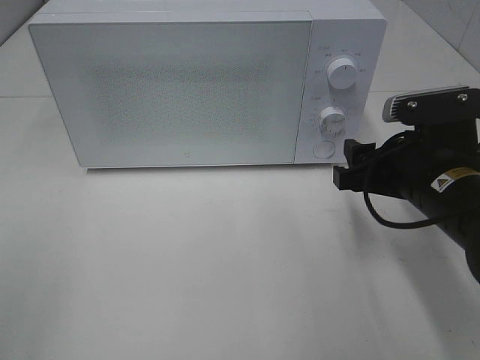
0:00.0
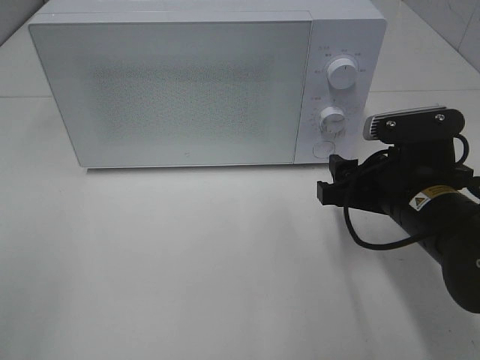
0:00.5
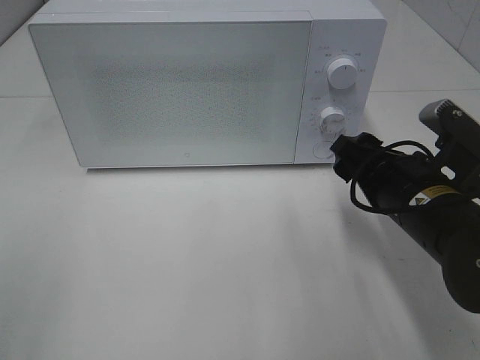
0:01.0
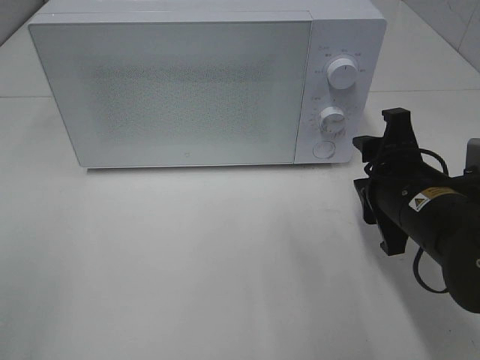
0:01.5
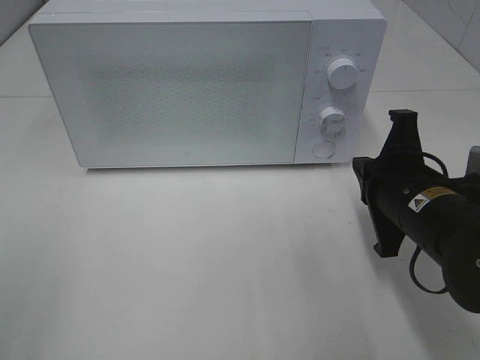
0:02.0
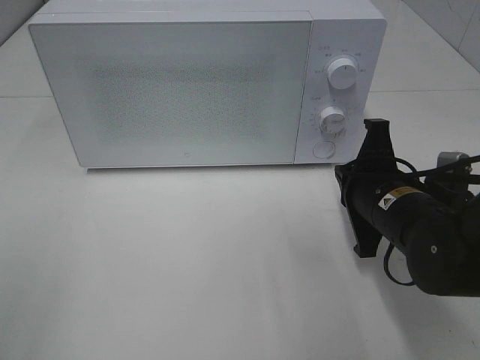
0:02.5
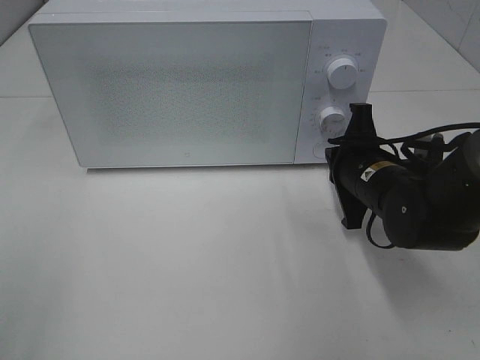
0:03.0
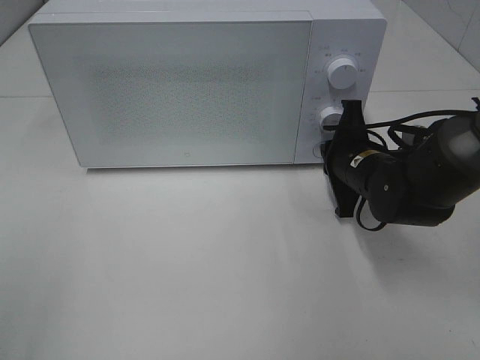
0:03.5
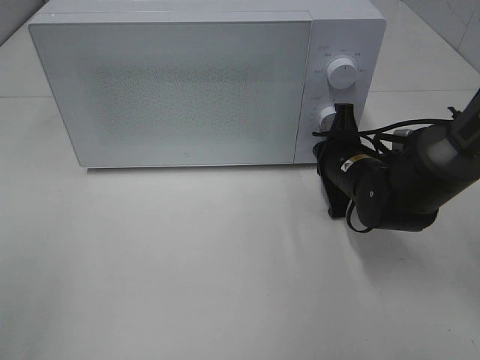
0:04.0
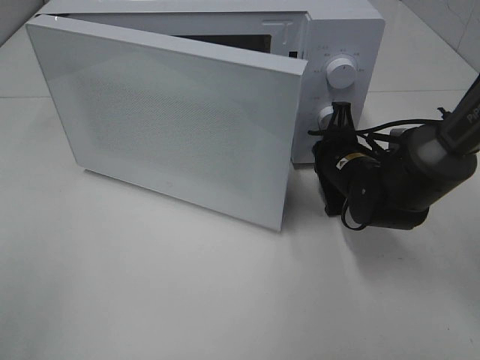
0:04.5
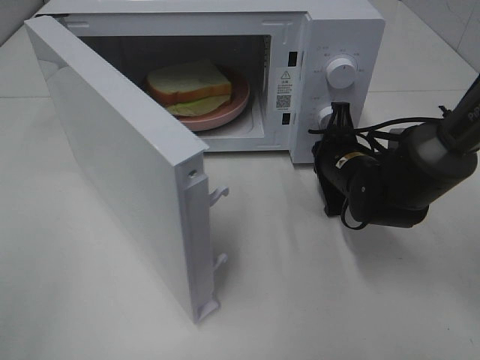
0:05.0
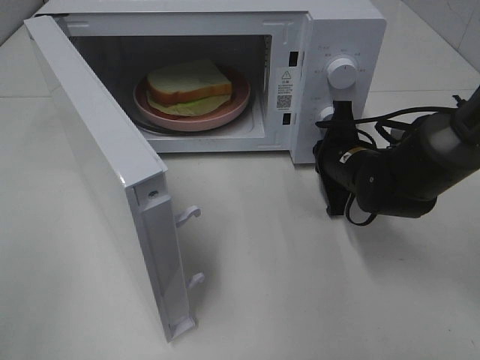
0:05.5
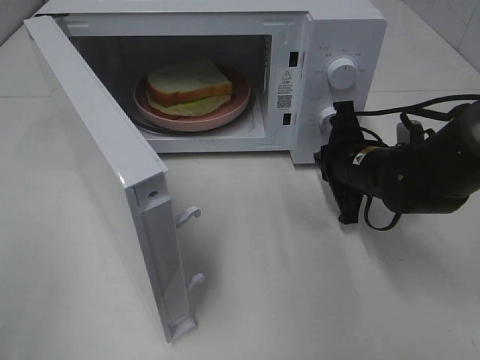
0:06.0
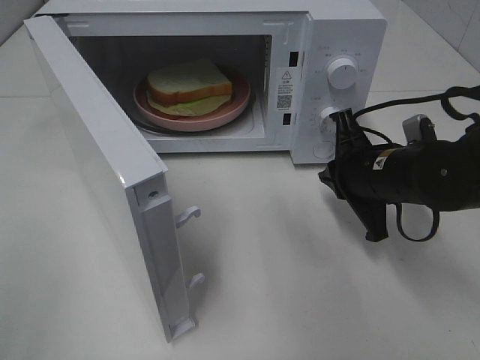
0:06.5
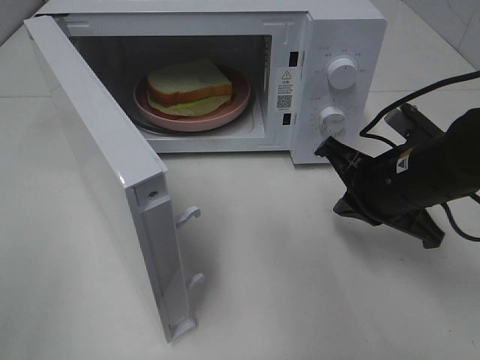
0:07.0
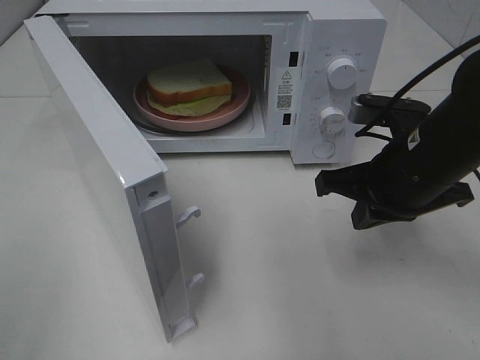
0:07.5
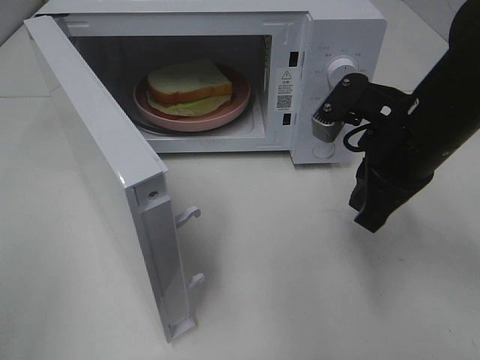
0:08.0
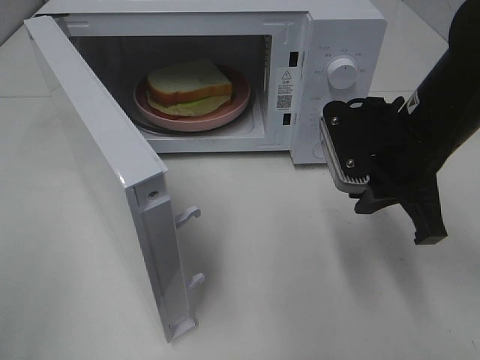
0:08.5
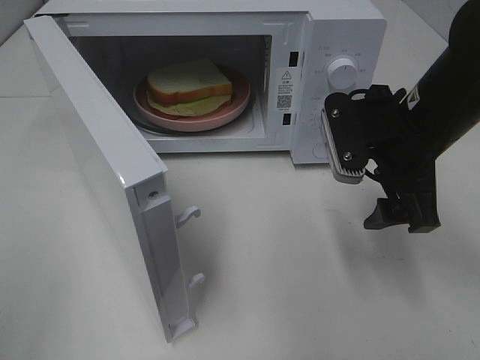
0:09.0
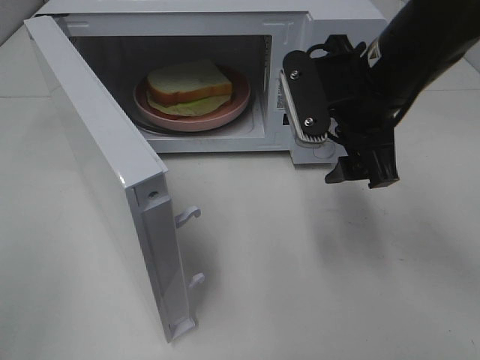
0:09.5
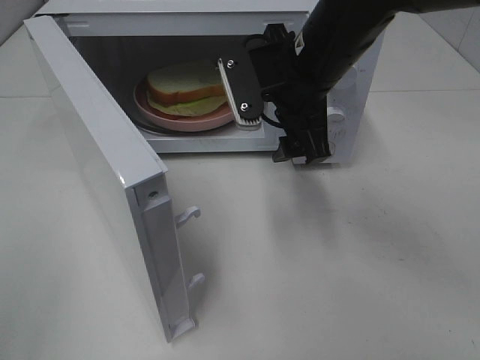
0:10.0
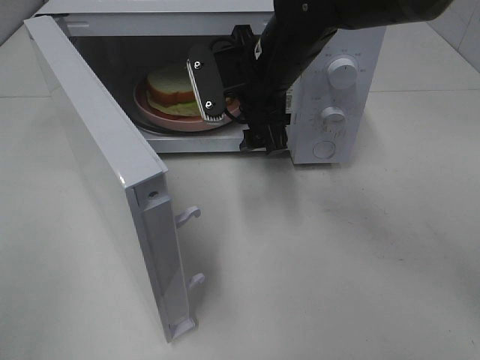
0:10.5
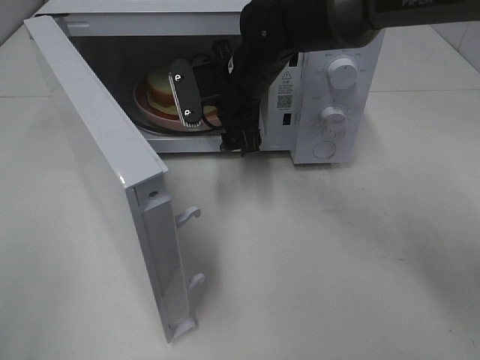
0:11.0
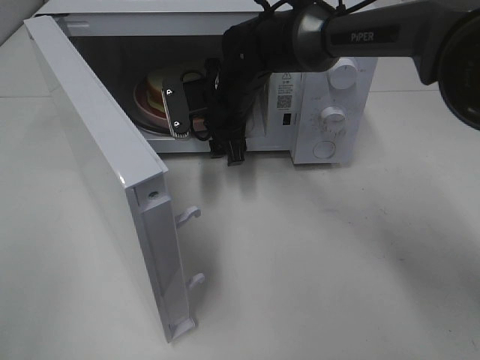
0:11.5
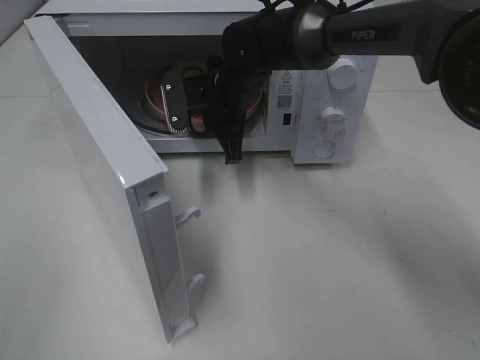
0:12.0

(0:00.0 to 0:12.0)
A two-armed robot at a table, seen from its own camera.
Task of the whole recording: Heat Sandwich.
Step, 0:00.0 - 0:06.0: Right hand: press the switch.
0:00.0 - 0:02.0: The right gripper closes.
0:02.0 - 0:04.0: The right gripper goes about 15 cm forward and downward.
0:06.0 - 0:08.0: The right gripper moves upward and backward, approximately 10 cm.
0:08.0 - 0:10.0: The right gripper moves to the left and forward, approximately 10 cm, and opens up.
0:10.0 - 0:12.0: The right gripper shifts some 15 cm forward, downward and to the left, and closes.

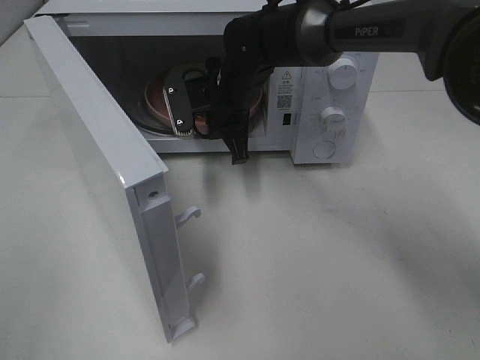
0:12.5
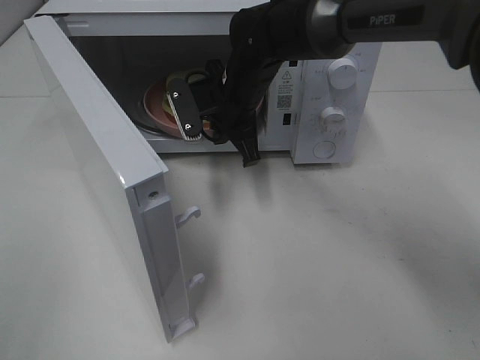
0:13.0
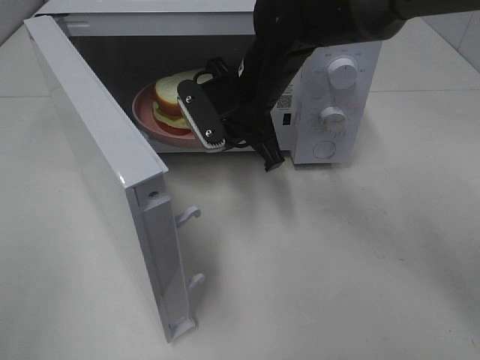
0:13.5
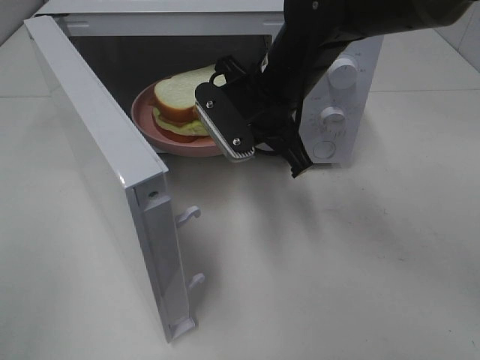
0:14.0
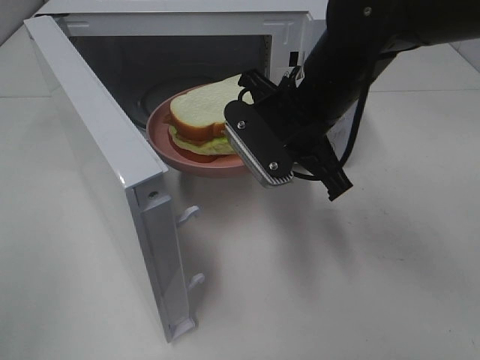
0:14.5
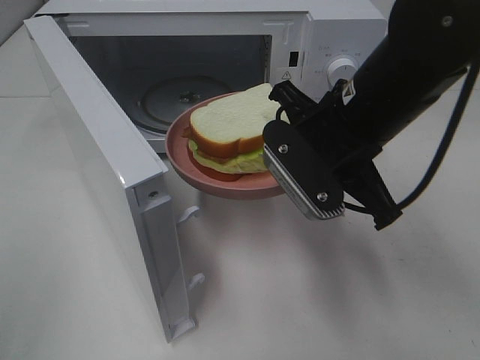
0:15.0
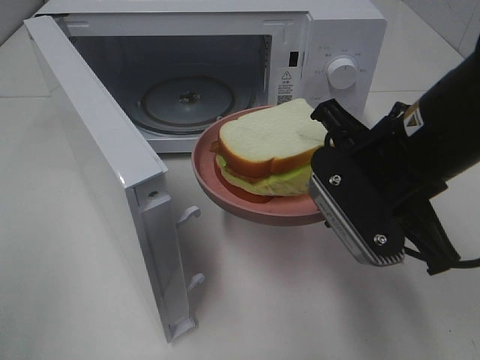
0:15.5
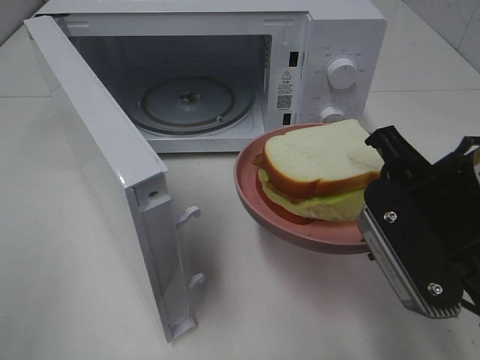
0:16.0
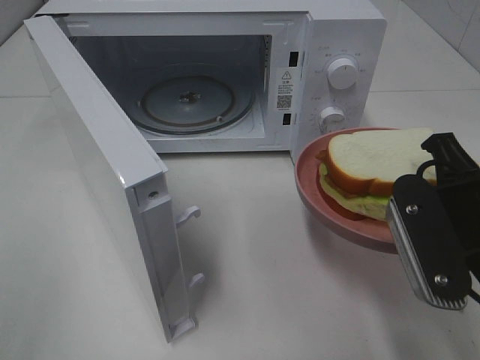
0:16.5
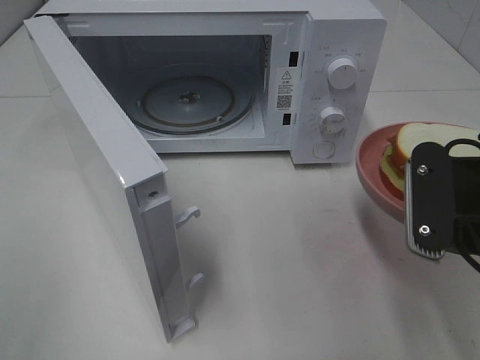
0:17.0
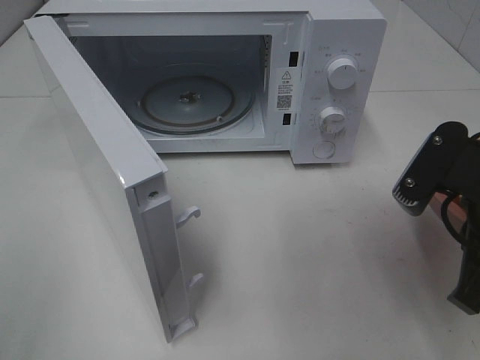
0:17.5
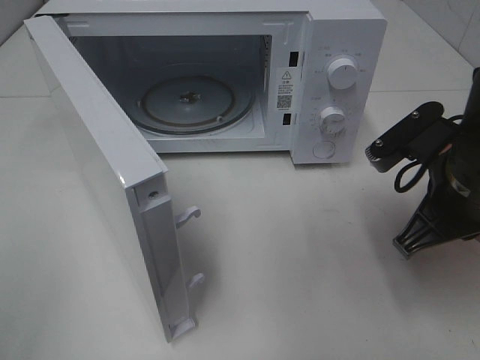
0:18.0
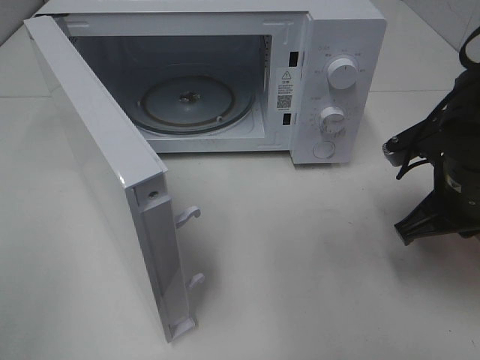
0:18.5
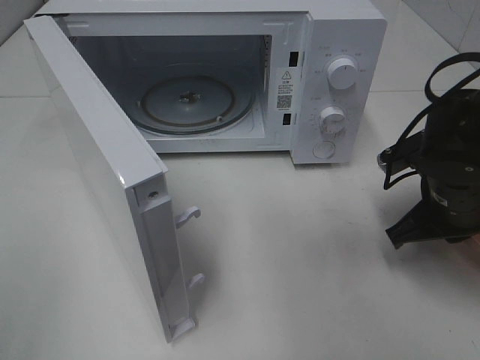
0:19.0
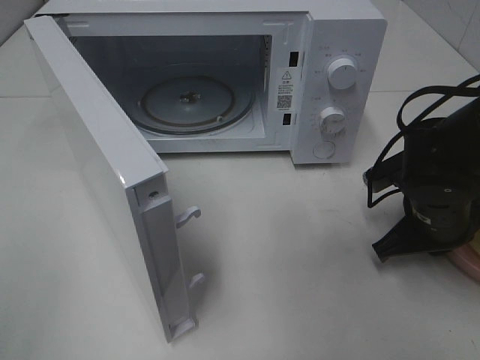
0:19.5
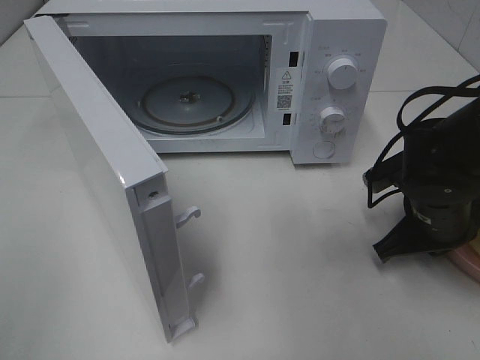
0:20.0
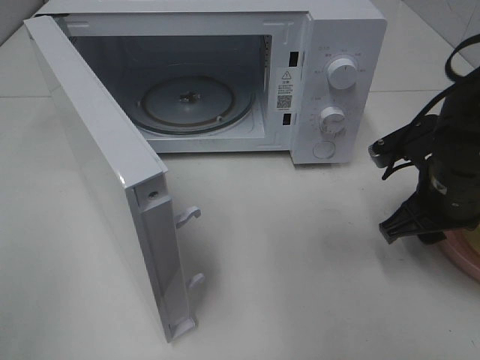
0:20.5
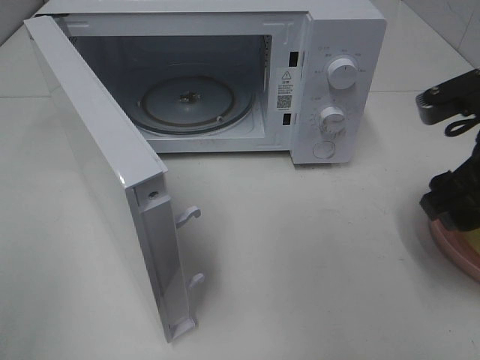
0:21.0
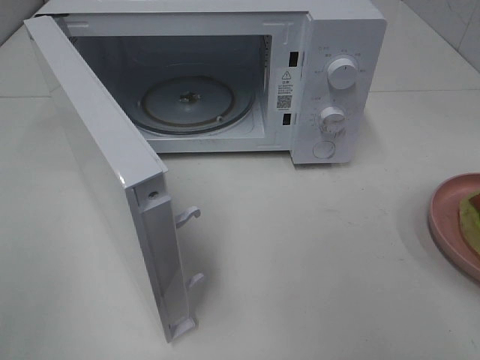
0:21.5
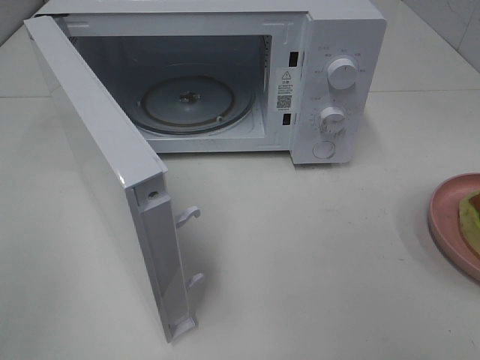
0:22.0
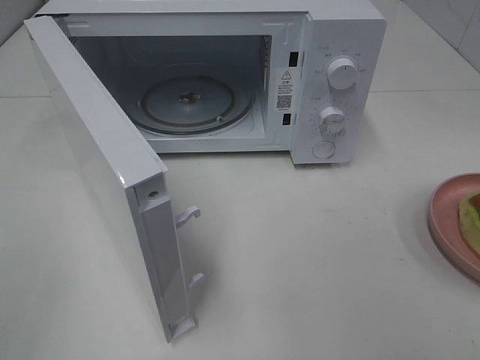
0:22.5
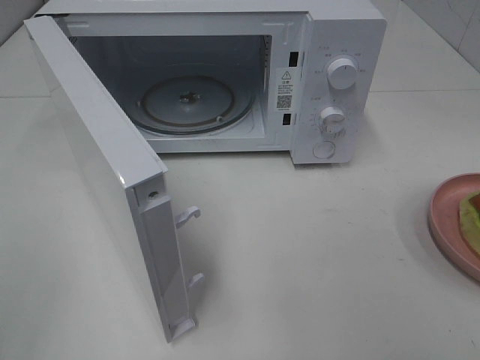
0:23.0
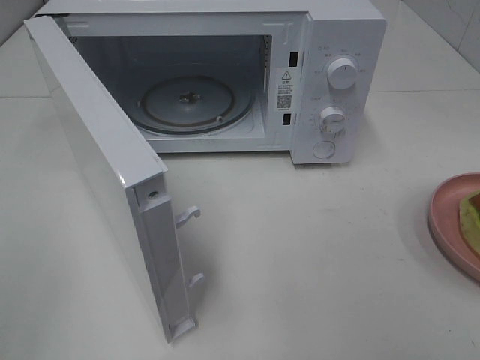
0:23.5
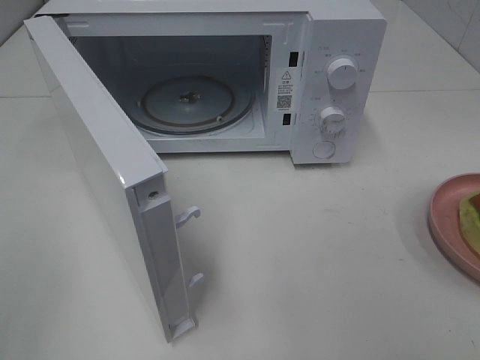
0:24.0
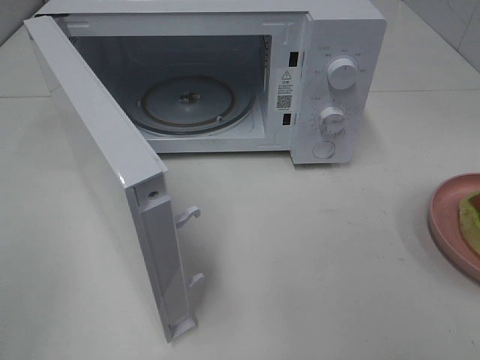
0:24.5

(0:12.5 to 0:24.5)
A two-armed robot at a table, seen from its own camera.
Task of the whole recording: Heat Sandwich.
Step, 0:12.5 - 0:20.0: Right hand: place the plate on the table.
0:12.5 - 0:14.5: The right gripper goes about 15 cm backward, to the right and upward.
0:14.5 - 0:16.5: The right gripper moves backward and to the right, about 20 cm.
0:16.5 - 0:18.5: The right gripper shifts roughly 10 cm forward and downward.
0:18.5 - 0:20.5: The right gripper opens its fingers.
0:20.5 - 0:22.5: The right gripper moves backward and upward, some 30 cm.

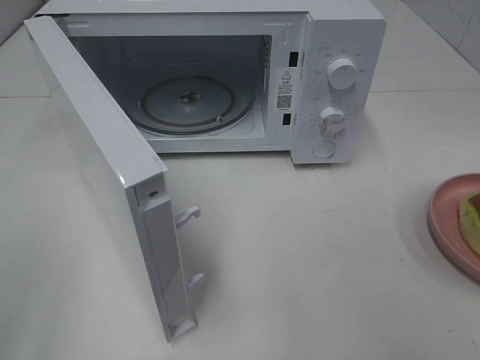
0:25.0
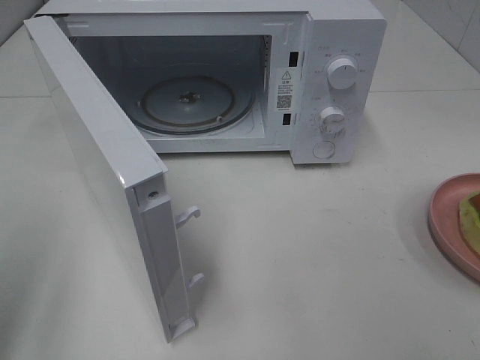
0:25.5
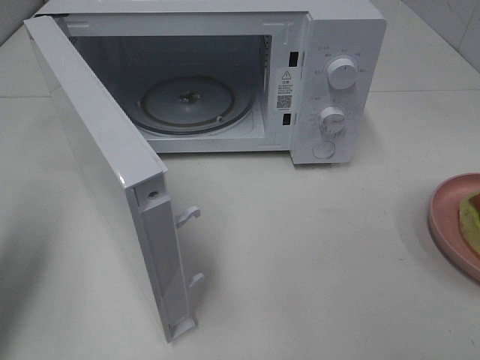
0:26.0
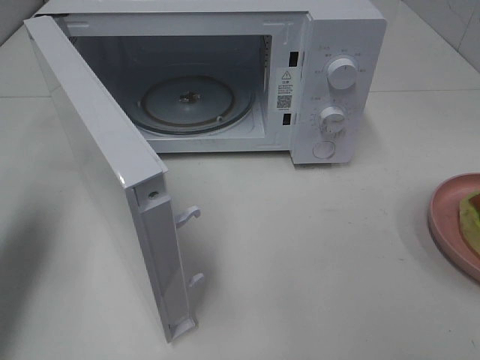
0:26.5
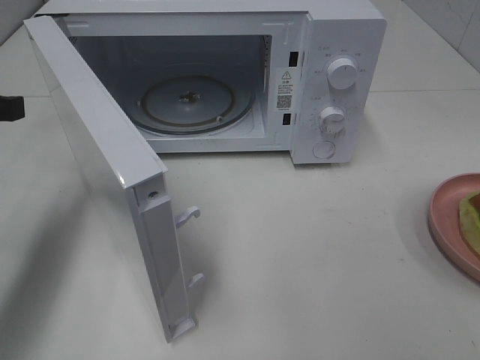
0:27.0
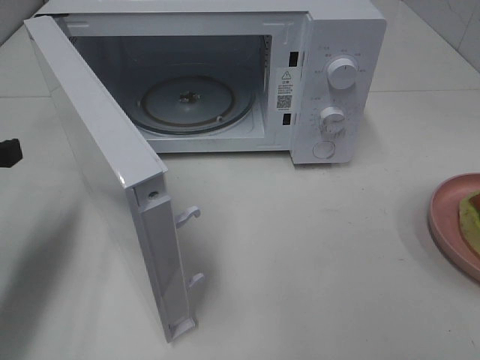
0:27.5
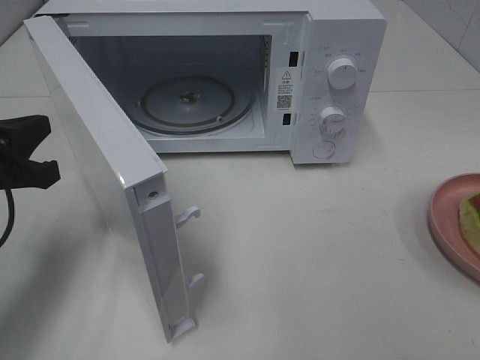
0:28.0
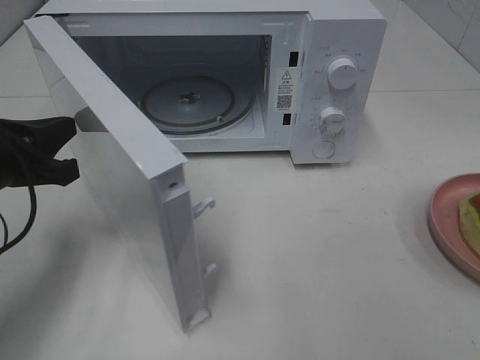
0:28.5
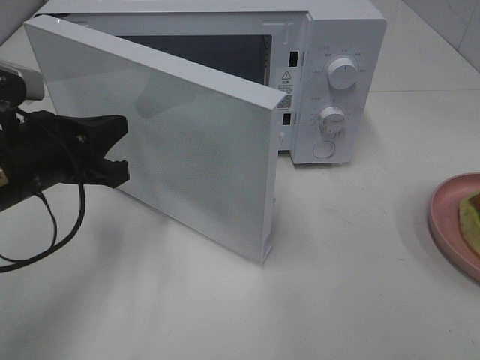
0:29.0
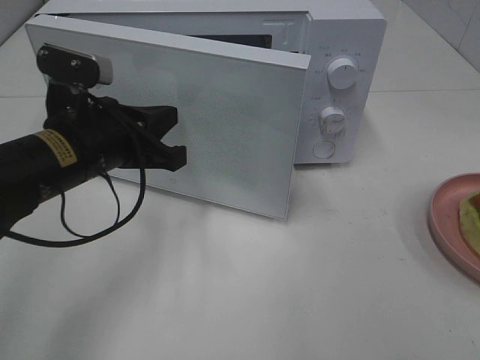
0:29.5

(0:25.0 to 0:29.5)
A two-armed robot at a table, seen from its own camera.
Task of the whole recording: Heat Sandwich.
0:25.0 - 0:27.0: The left gripper heads forward, covering about 25 cm, and closes its fingers.
0:27.0 - 0:29.5: The left gripper moves to the right and downward, approximately 15 cm.
